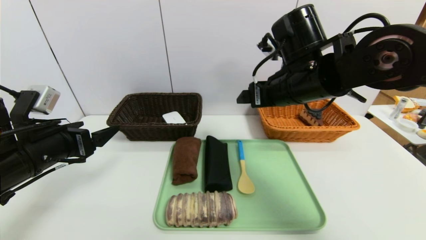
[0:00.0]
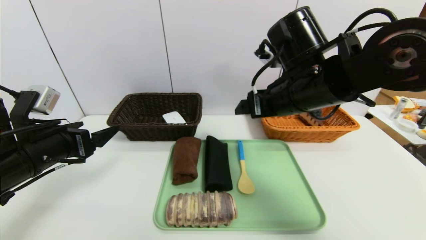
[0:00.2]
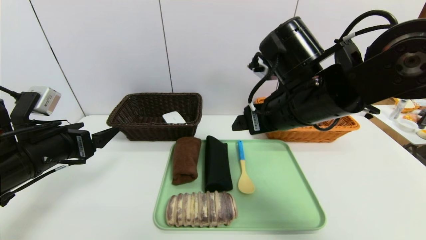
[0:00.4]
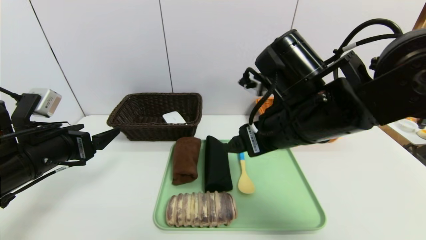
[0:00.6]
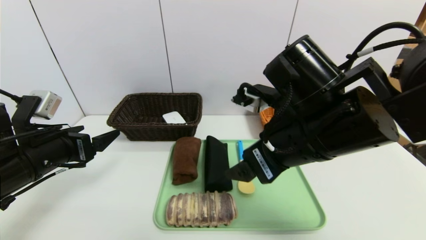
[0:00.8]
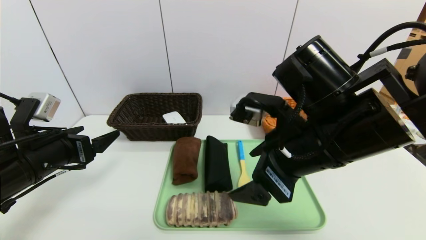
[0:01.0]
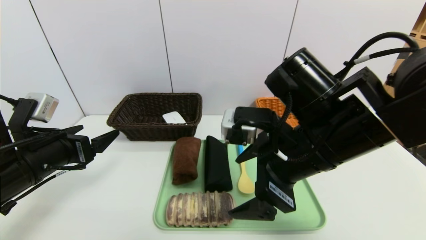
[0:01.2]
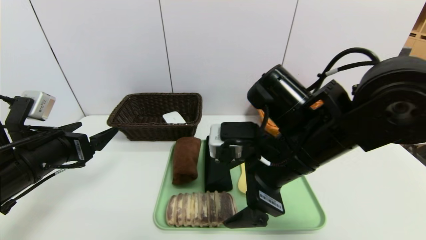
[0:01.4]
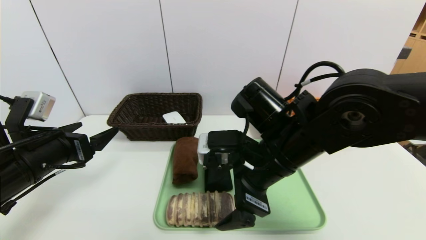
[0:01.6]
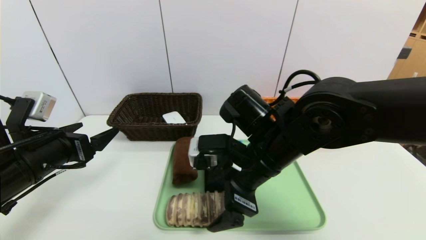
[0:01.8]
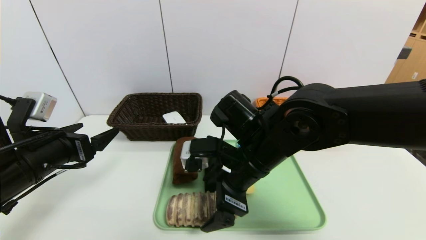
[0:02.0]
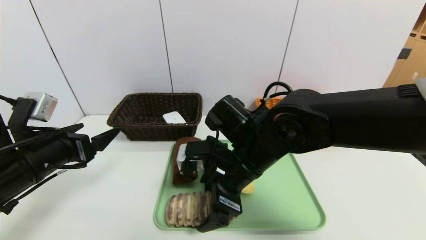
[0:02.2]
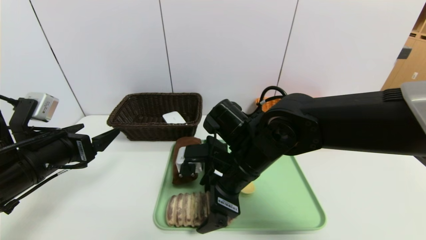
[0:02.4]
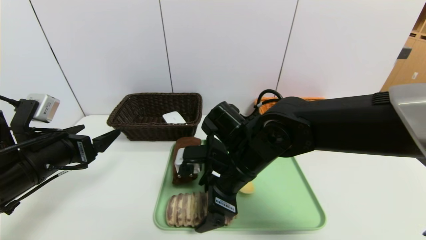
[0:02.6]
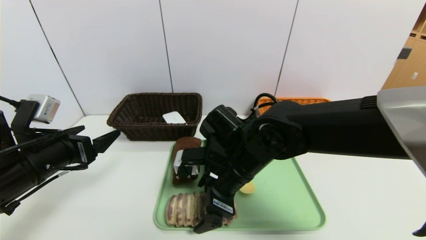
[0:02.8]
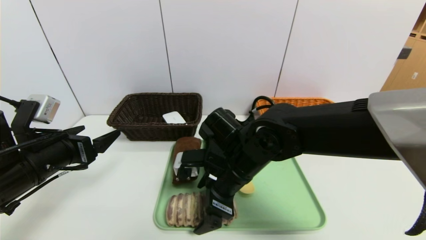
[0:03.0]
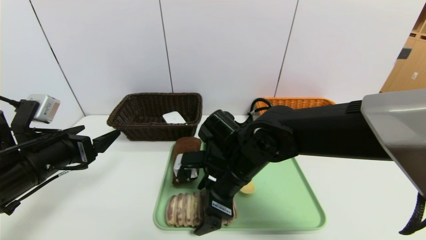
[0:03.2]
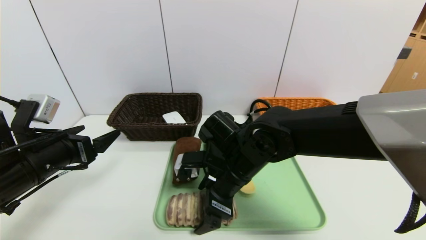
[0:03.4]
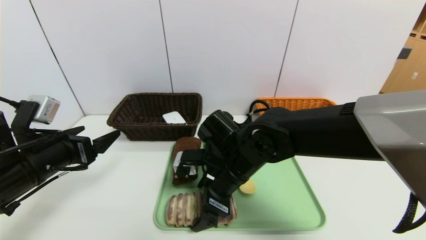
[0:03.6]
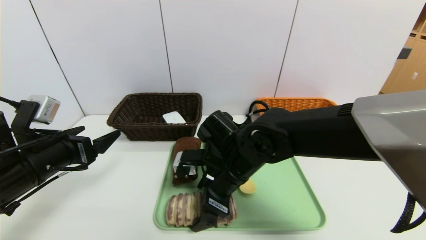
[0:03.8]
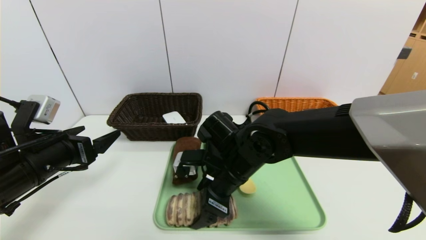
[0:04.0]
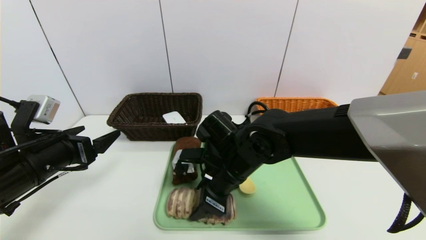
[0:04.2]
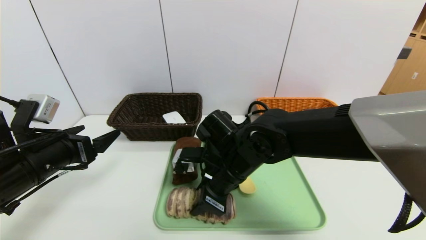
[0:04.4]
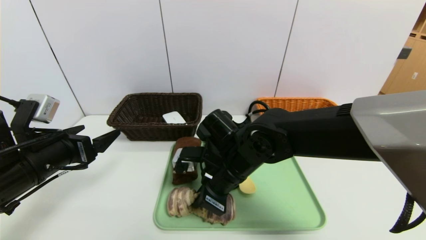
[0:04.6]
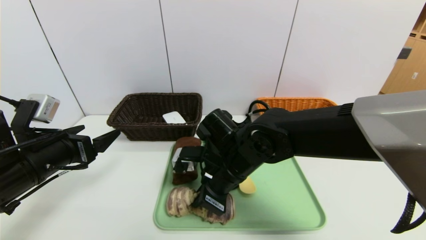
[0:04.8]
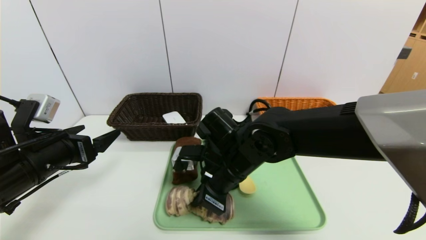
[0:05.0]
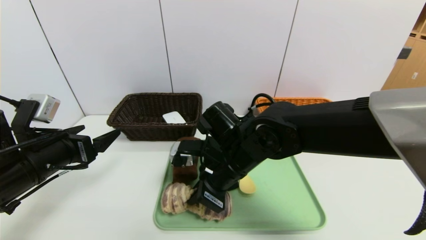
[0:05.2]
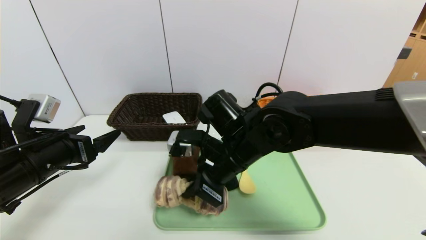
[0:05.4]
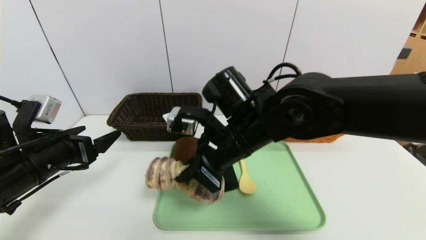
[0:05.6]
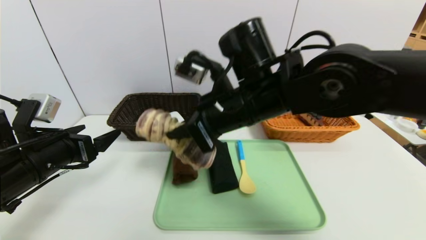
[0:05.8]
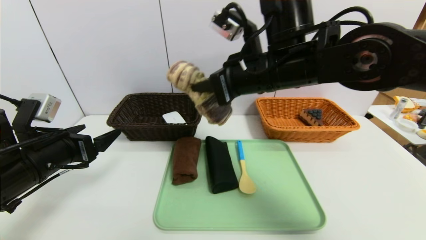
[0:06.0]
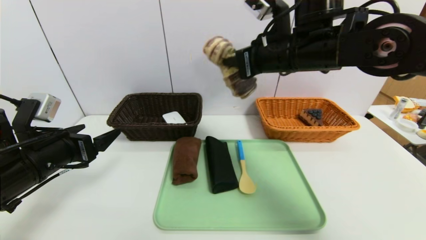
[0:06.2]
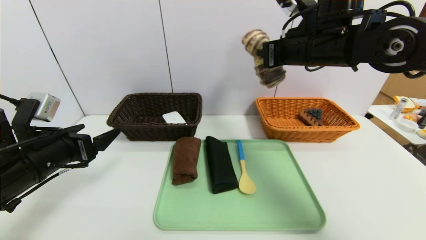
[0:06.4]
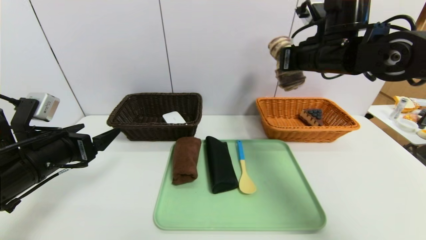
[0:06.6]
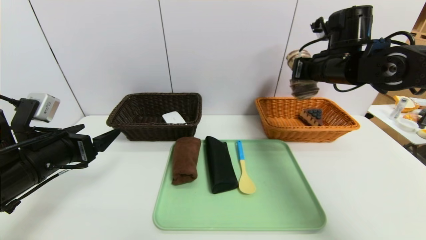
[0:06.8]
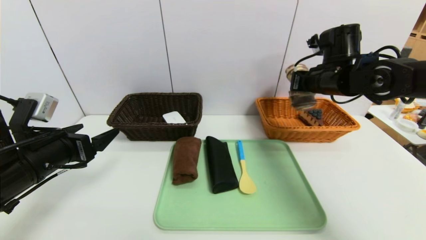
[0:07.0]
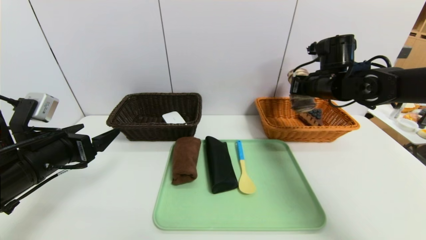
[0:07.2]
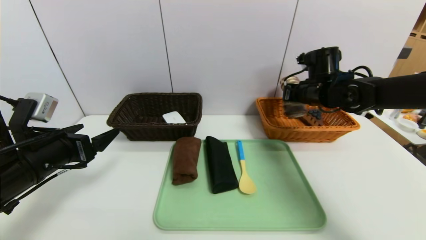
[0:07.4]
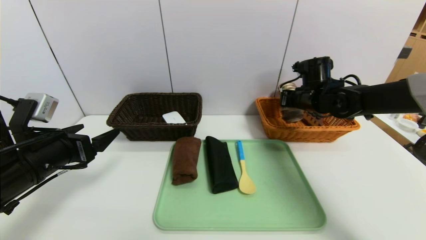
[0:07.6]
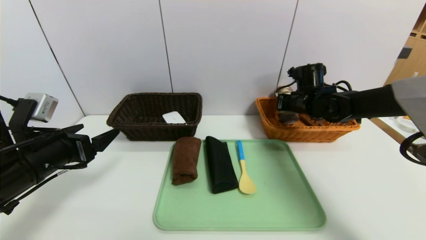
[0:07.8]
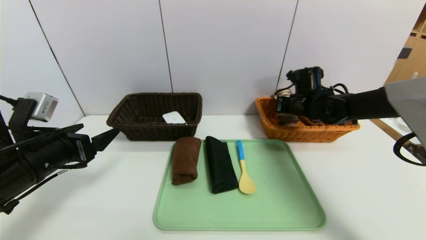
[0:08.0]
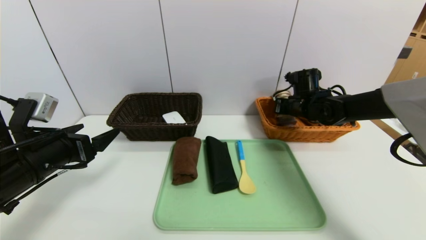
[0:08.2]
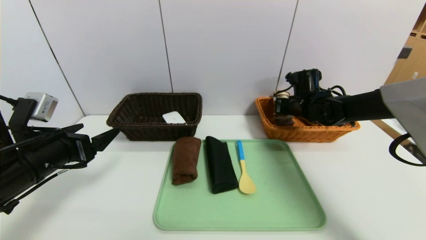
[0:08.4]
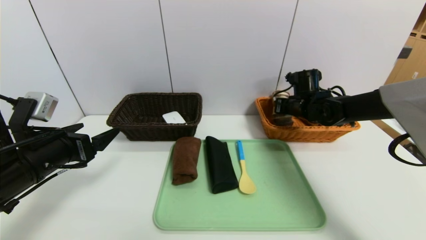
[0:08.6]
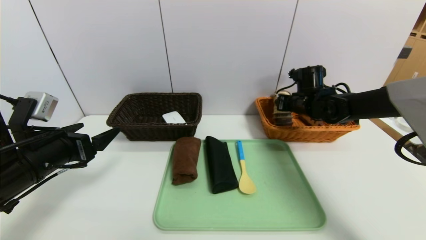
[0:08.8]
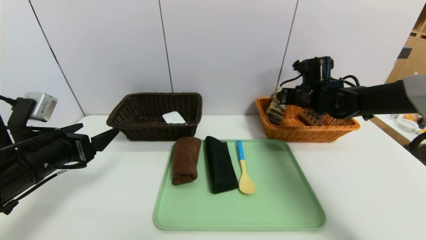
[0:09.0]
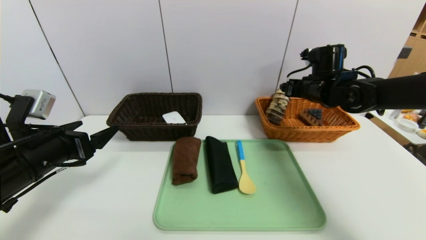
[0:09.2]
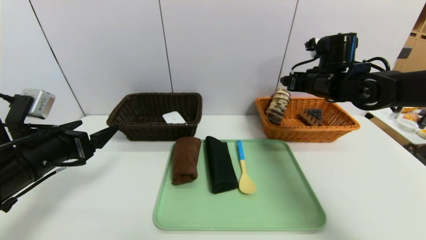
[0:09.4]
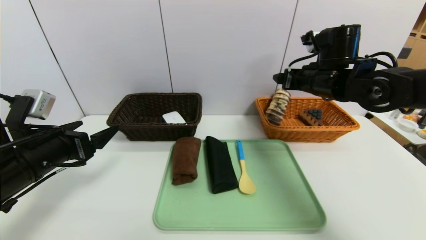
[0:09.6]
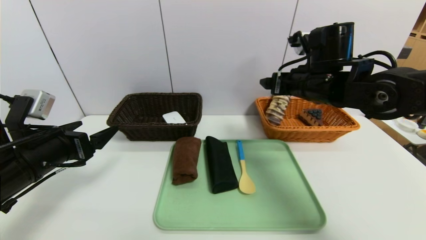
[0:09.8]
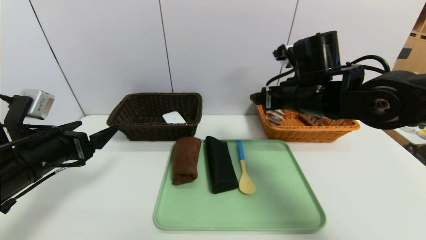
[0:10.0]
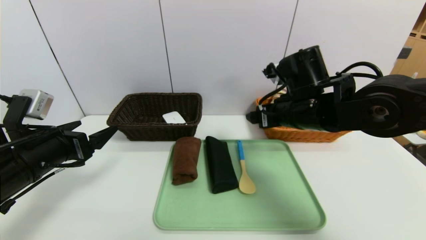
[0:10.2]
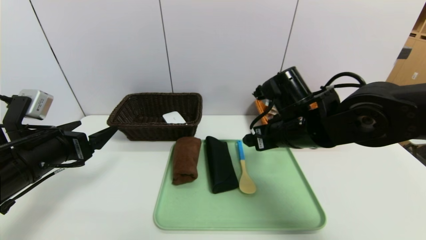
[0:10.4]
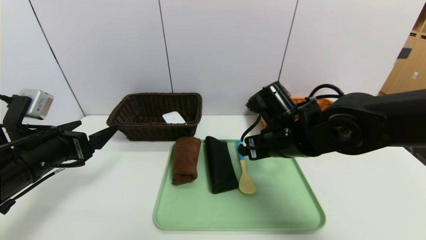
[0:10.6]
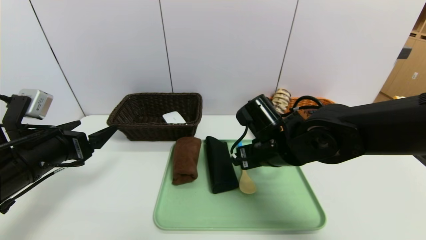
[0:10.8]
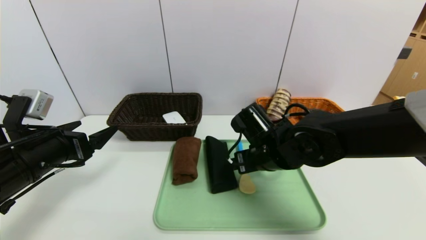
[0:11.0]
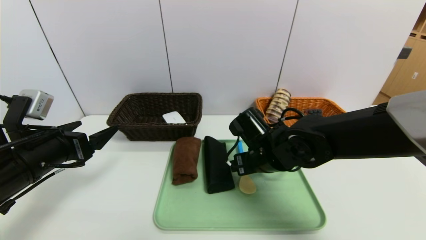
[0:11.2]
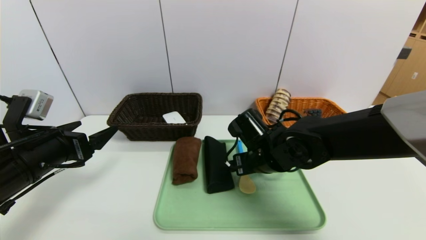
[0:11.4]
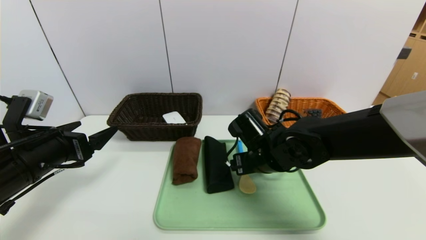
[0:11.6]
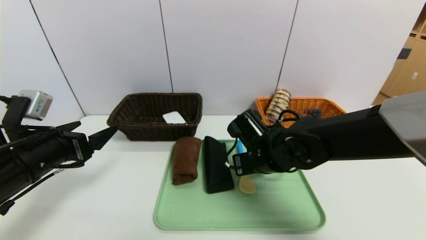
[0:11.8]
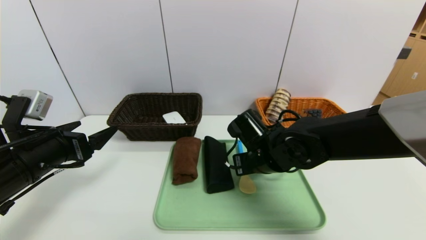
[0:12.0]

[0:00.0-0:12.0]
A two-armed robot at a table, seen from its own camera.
Task of the whole recording: place the food in the right basket with the right gripper, and place the non food items in the left basket with the left gripper.
Step, 0:00.0 to 0:09.0: Grasp the long bread and put it in the right basket.
0:00.0 to 0:01.6: The right gripper goes some 10 cm downward and backward.
0:01.6 to 0:03.0: The right gripper goes about 5 cm downward.
0:03.0 to 0:04.4: The right gripper closes up.
0:04.4 to 0:06.0: The right gripper shifts approximately 15 cm upward, and closes its fingers.
0:06.0 to 0:07.6: The right gripper travels to the right, forward and downward by some 25 cm.
0:07.6 to 0:09.0: The right gripper opens its fingers.
0:09.0 to 0:10.4: The right gripper is displaced backward and to the left by about 20 cm.
0:10.4 to 0:12.0: The right gripper goes some 10 cm downward, and closes.

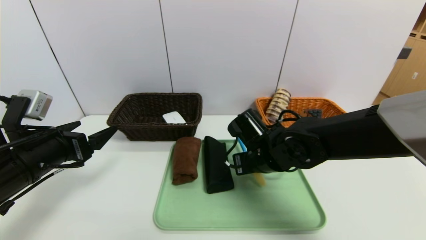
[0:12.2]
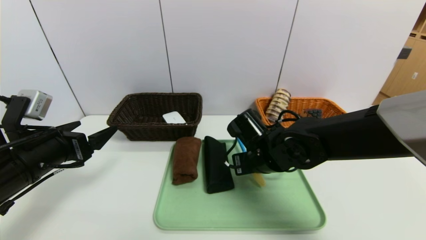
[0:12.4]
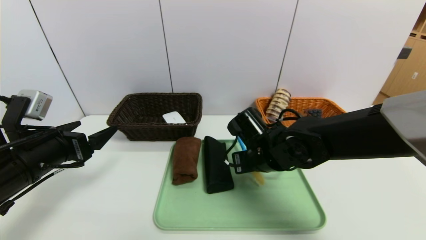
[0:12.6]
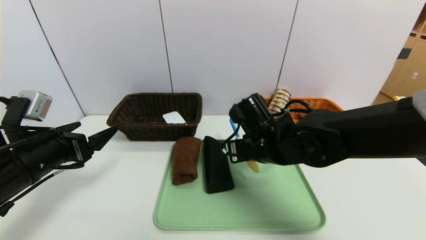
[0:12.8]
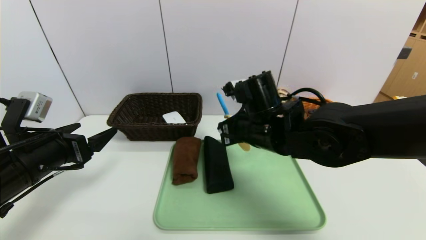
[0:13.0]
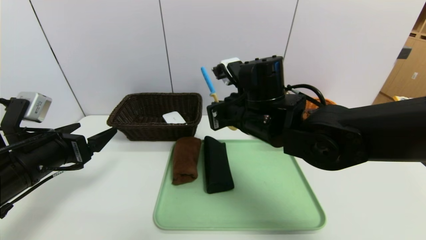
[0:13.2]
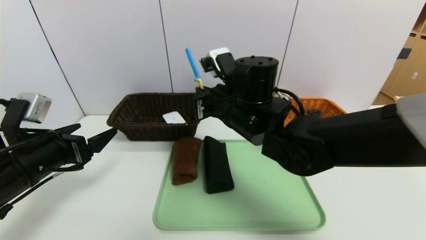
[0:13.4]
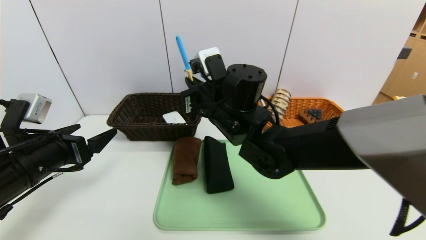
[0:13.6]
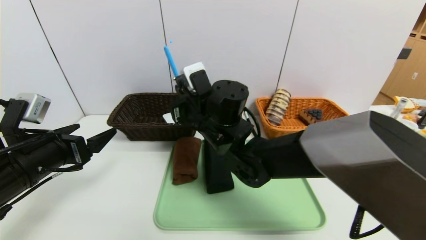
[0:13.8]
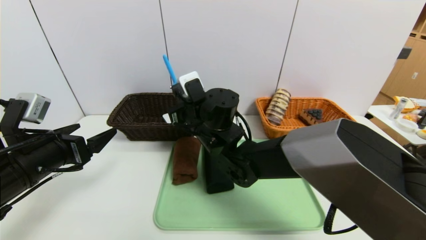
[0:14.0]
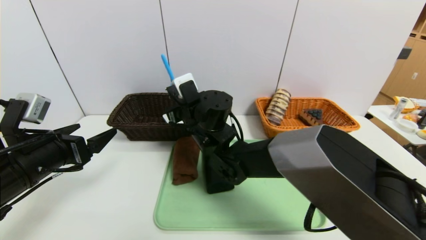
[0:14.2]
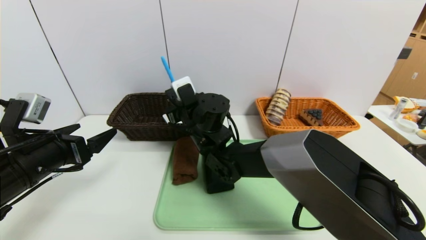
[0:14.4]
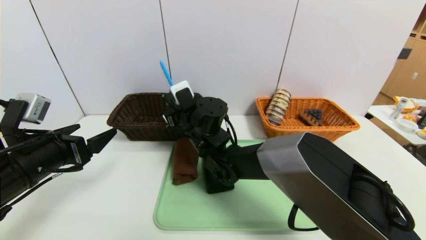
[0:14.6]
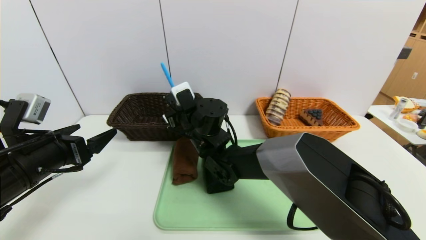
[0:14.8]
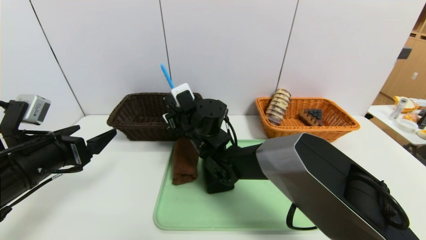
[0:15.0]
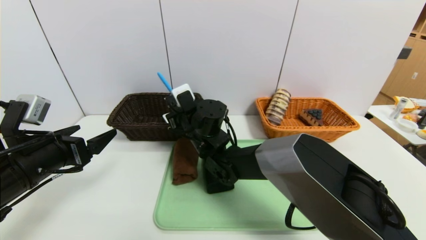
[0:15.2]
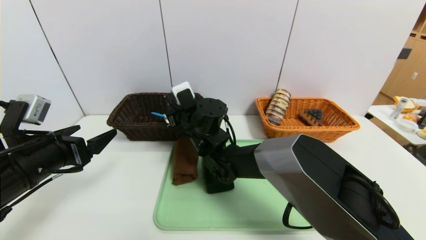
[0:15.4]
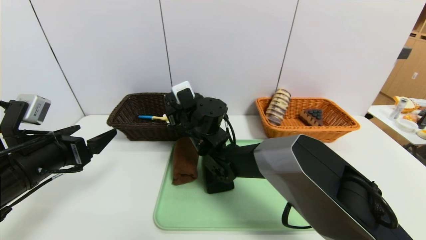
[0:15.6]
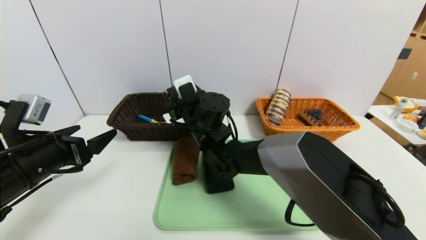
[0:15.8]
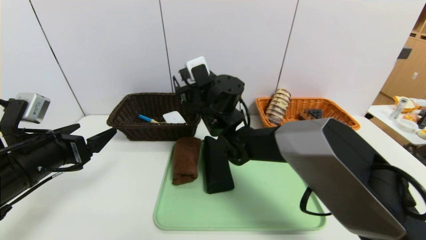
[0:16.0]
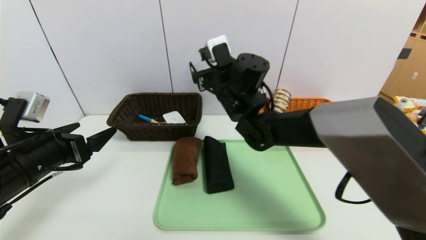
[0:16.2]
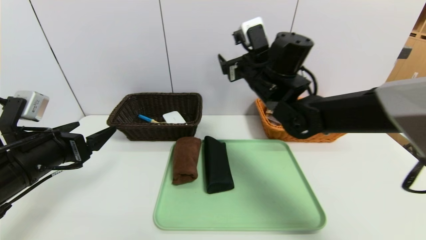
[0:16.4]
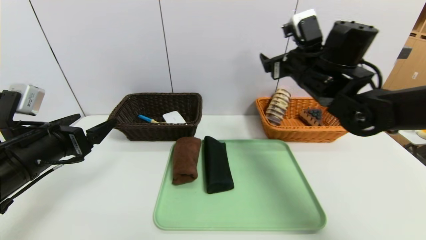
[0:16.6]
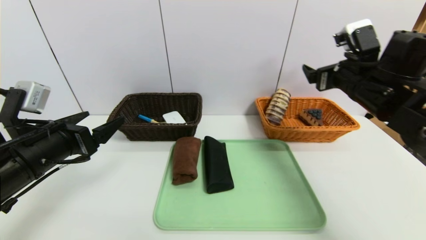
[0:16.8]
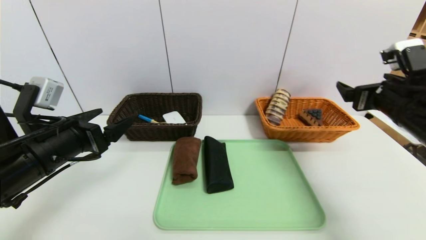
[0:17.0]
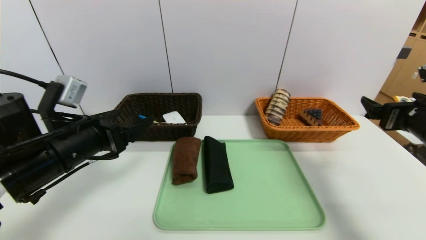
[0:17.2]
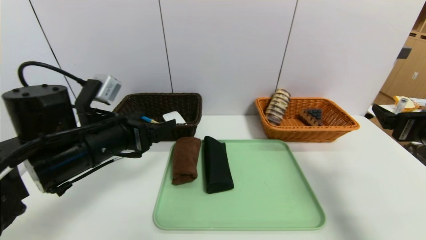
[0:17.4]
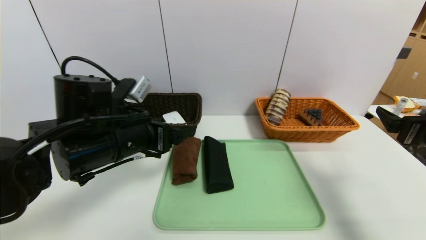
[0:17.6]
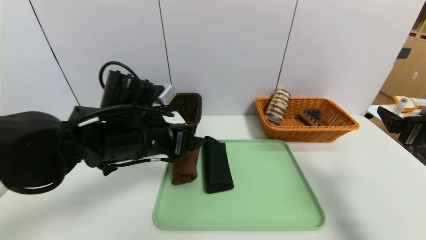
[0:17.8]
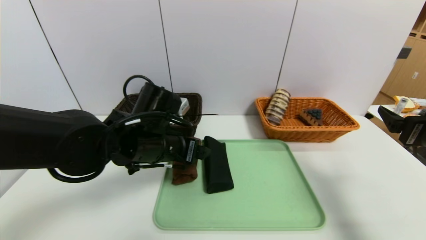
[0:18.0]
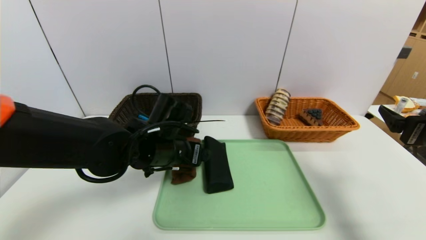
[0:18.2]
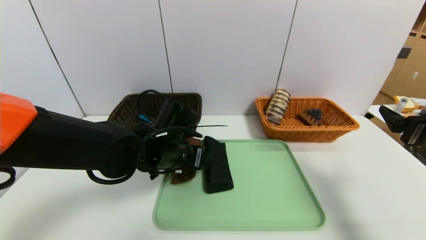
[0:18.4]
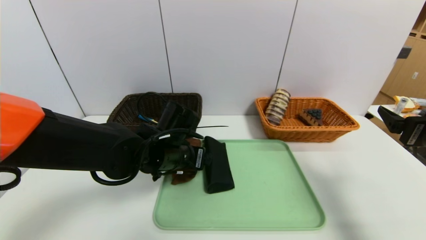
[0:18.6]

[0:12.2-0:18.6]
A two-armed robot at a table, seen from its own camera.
Task of the whole recording: place the food in the right basket with the right gripper, and place the non food items in the left basket with the left gripper.
0:12.2 to 0:13.8: The right gripper travels to the left and upward by approximately 15 cm.
0:13.8 to 0:15.4: The right gripper ends up about 5 cm from where it was, and opens.
0:15.4 to 0:17.0: The right gripper goes some 35 cm to the right, and opens up.
0:17.0 to 0:18.6: The left gripper moves to the right and forward, some 20 cm, while the right gripper moves backward, roughly 10 cm.
